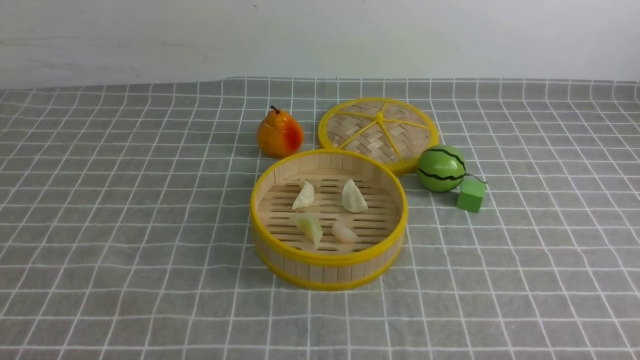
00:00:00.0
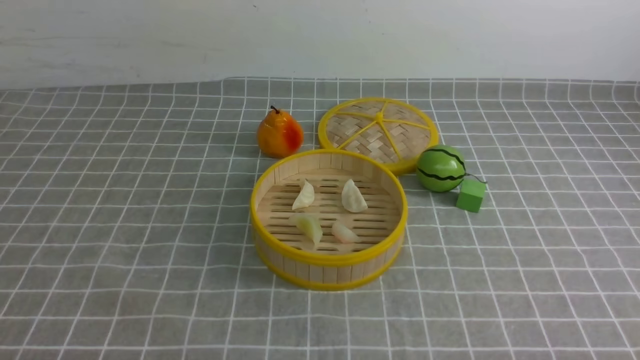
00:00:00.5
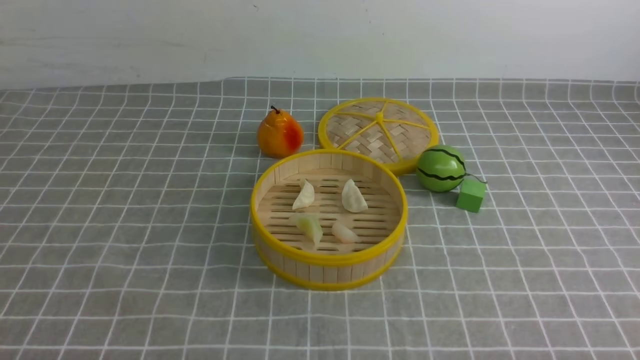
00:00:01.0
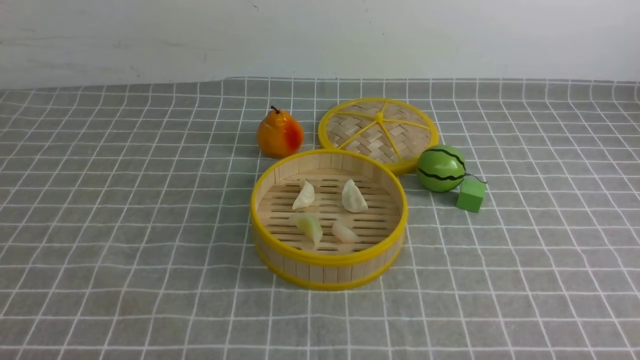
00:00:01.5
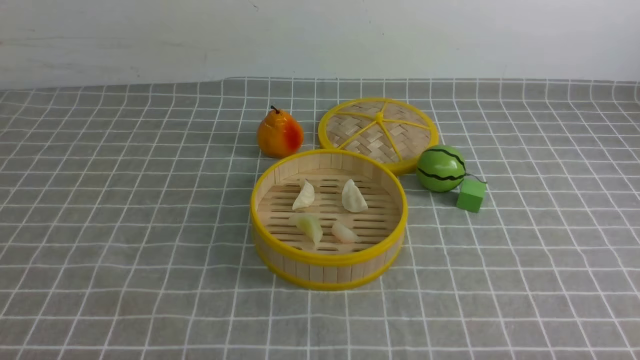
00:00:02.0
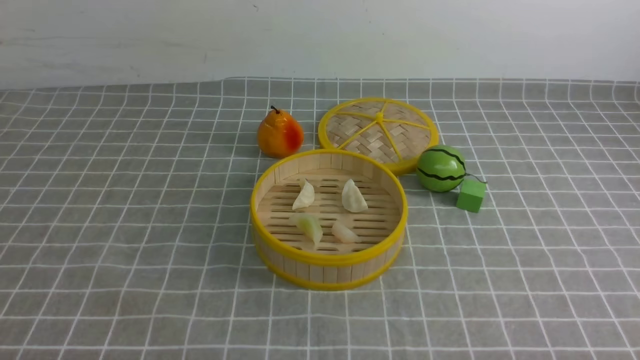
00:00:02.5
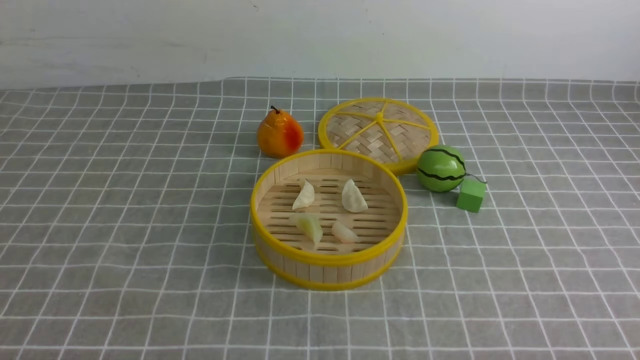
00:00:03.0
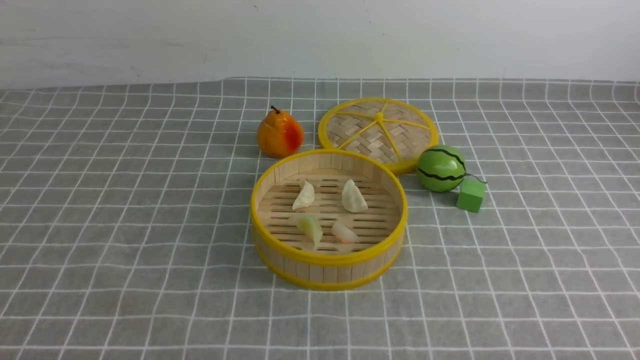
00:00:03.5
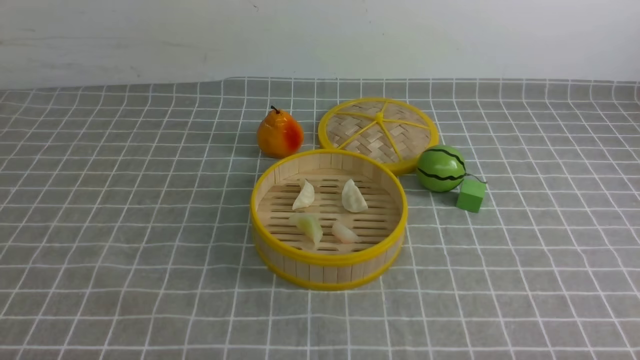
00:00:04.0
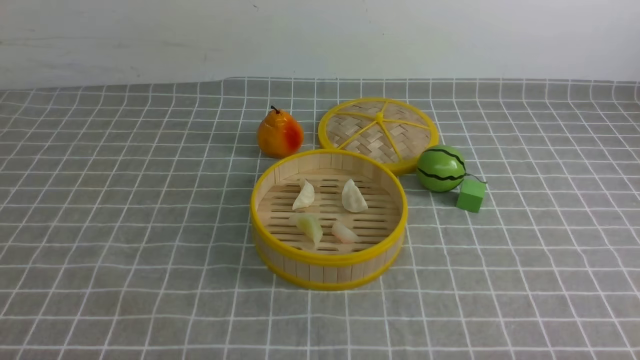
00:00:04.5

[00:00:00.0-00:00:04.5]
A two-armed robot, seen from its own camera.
Task of the whole recording: put the dumplings into the steamer on the table with the grey tablecloth.
00:00:00.0 to 00:00:04.5: Neither gripper changes place.

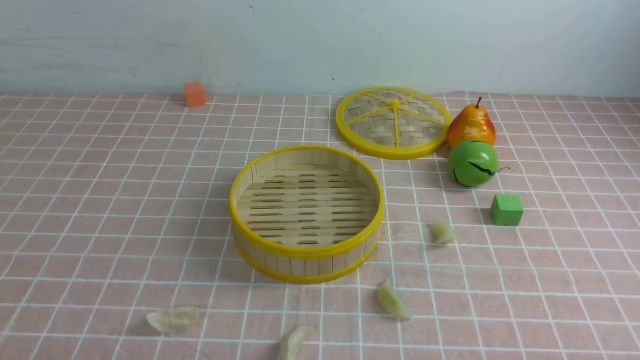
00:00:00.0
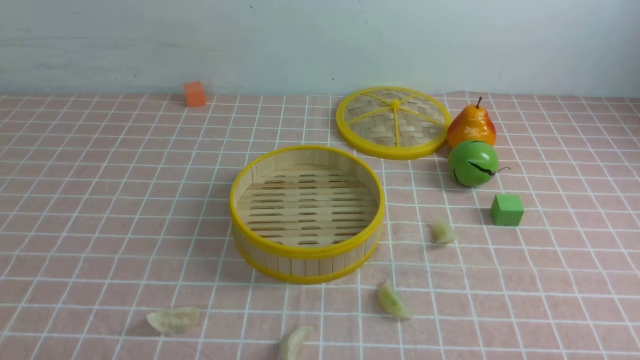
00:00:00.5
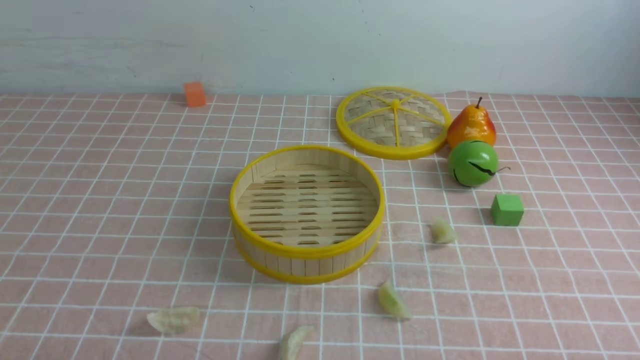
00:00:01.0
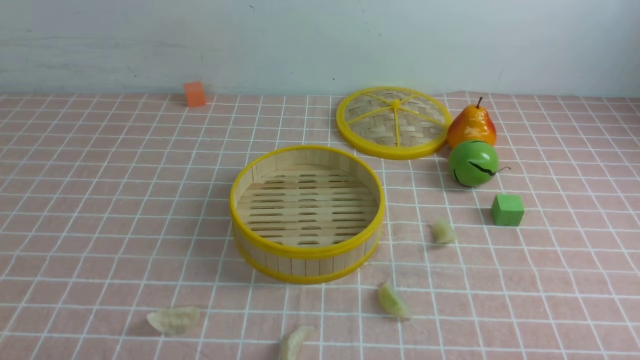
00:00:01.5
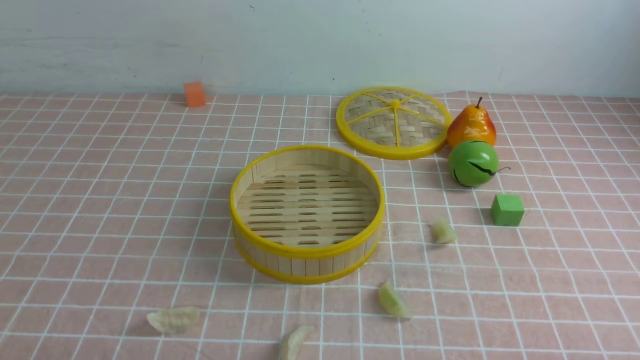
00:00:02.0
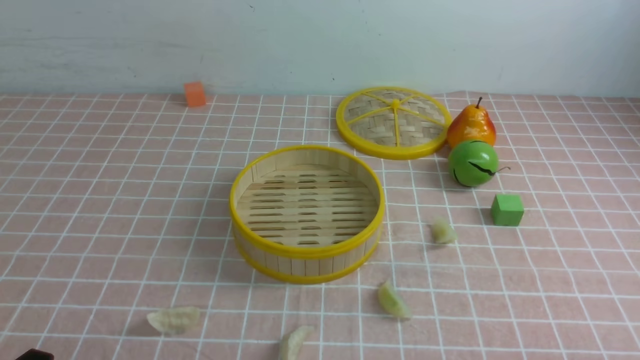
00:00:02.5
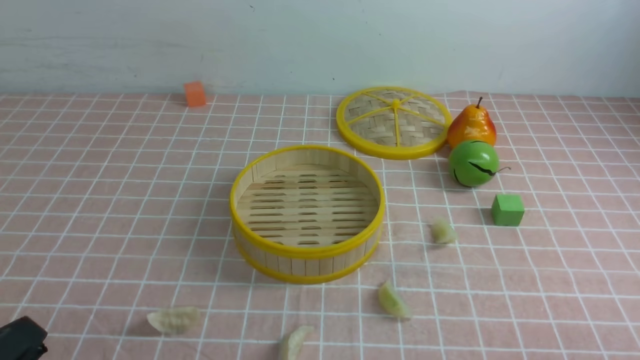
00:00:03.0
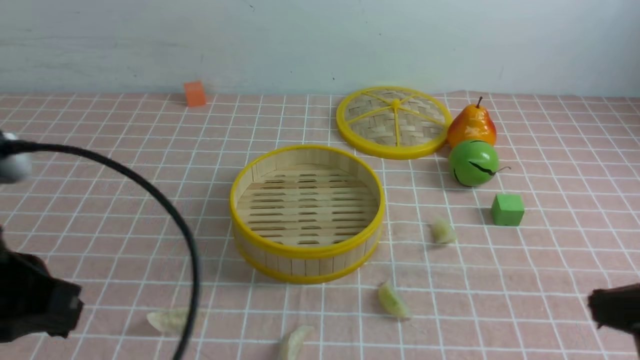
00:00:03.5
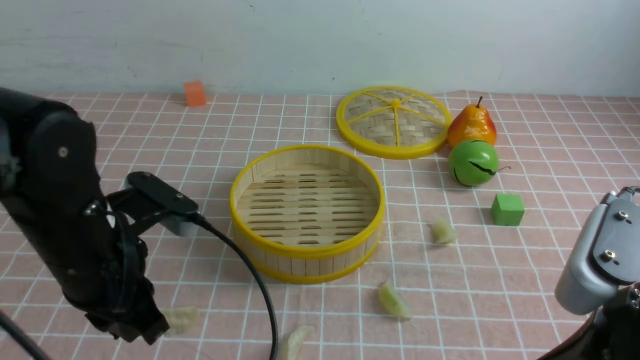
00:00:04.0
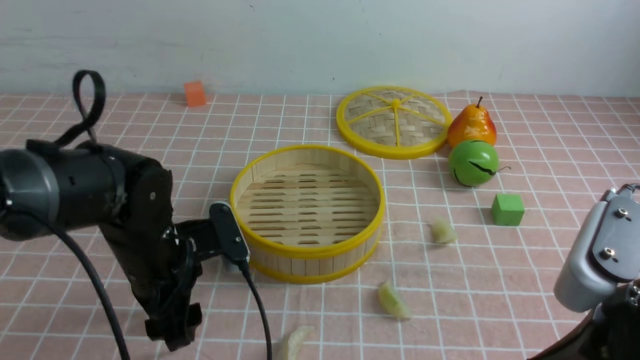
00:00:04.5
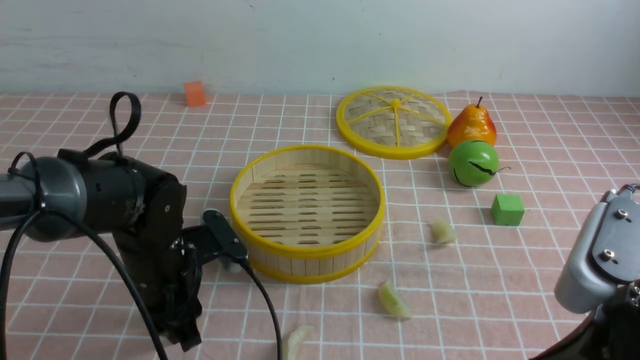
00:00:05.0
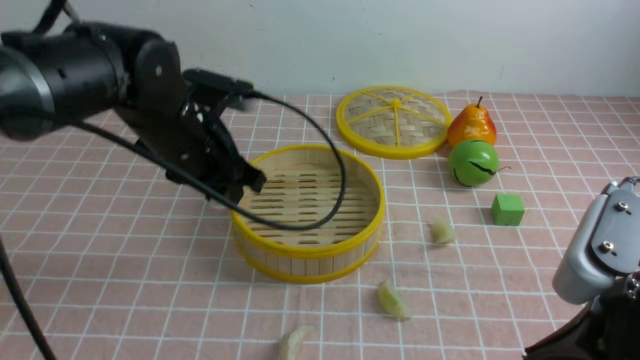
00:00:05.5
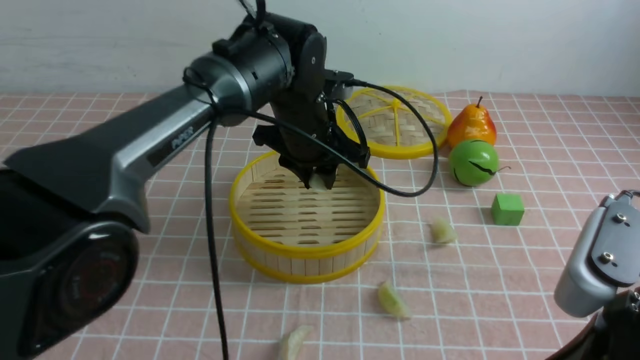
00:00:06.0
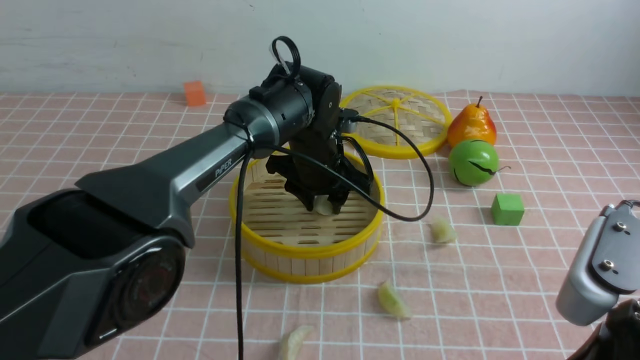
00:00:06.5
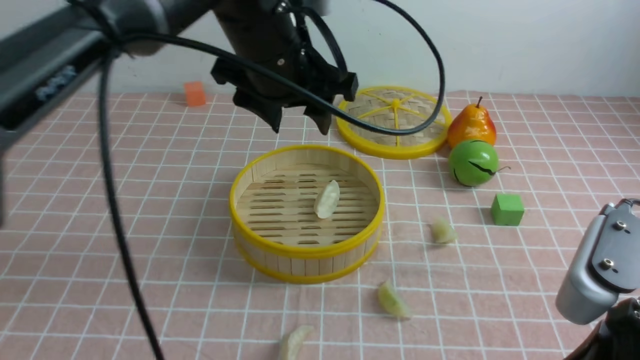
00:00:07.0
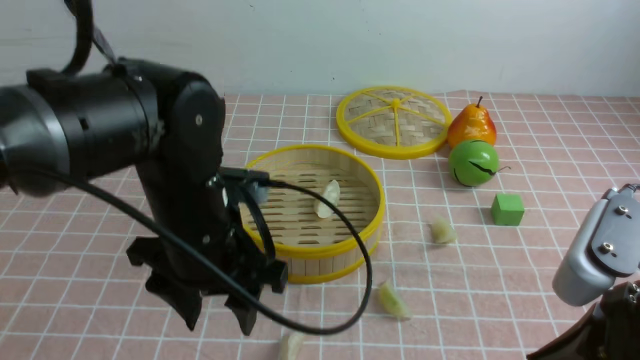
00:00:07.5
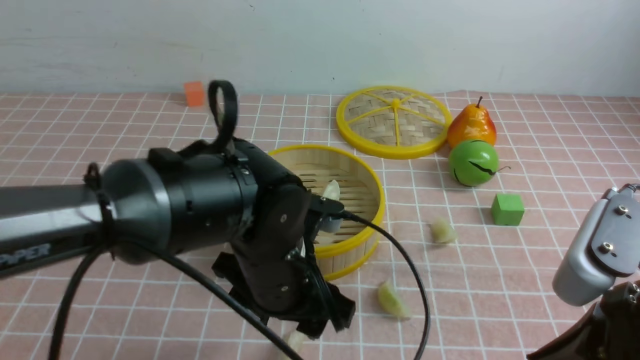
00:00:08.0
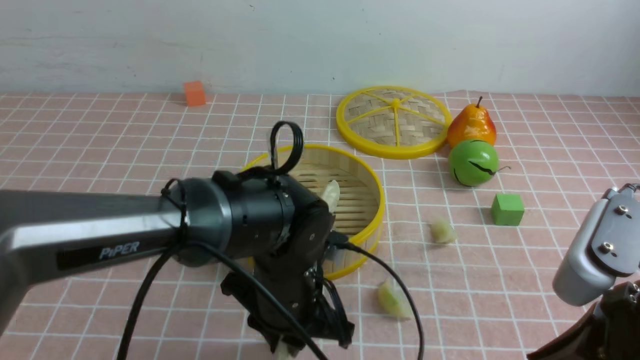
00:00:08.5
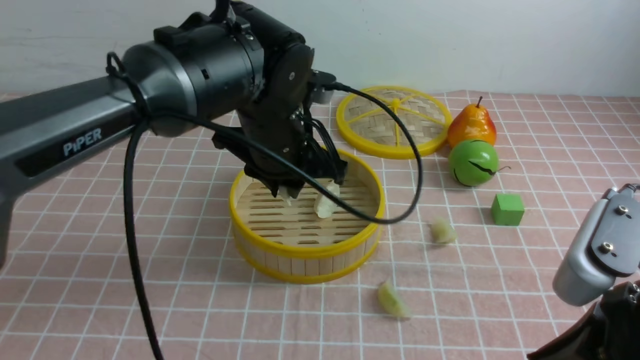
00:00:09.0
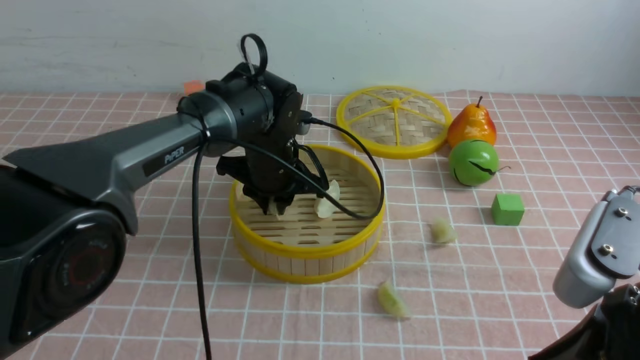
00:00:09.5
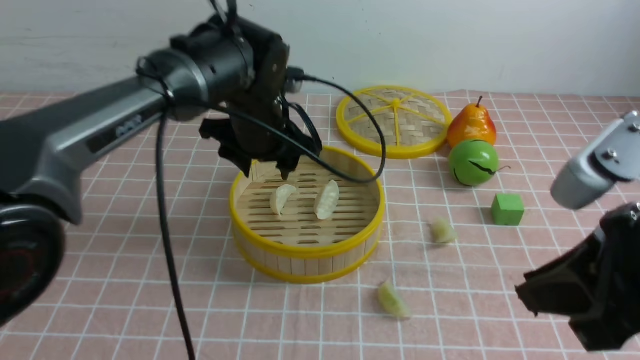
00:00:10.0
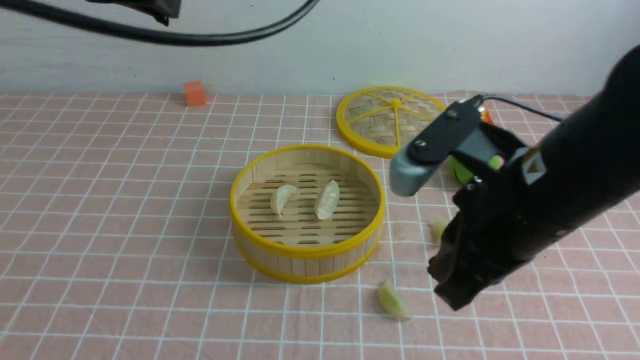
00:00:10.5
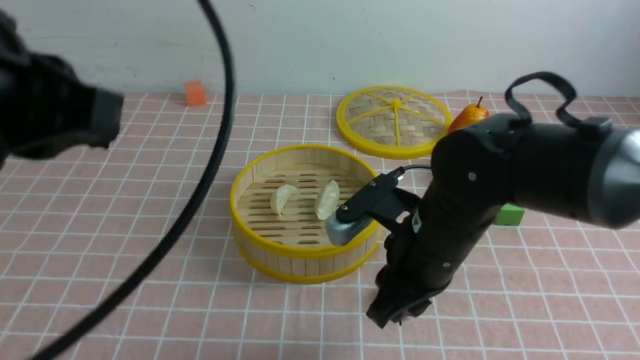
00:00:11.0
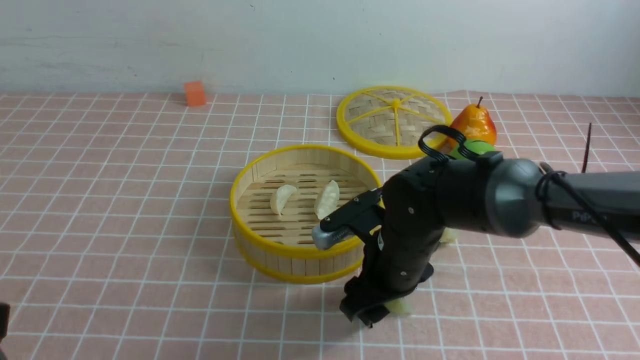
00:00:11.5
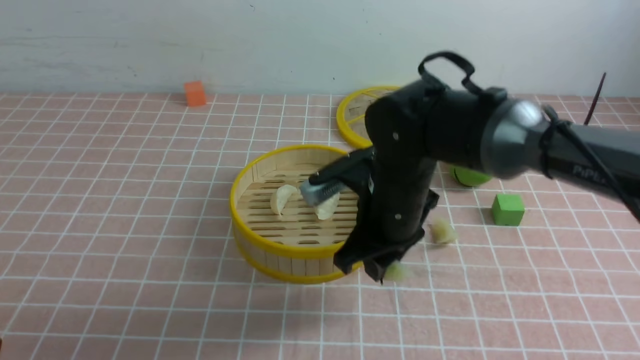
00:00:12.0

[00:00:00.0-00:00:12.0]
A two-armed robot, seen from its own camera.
Task of the whole recording: put the dumplings into the steamer on the table with the pink tablecloth.
Step, 00:00:00.0 to 00:00:05.0: use the left arm to grab a dumpling.
Step, 00:00:05.5 to 00:00:06.5: use the left arm to put the dumpling into the steamer.
Step, 00:00:07.5 to 00:00:08.5: use the left arm to grab a dumpling.
Step, 00:00:09.0 to 00:00:10.0: use the left arm to put the dumpling into the steamer.
Step, 00:00:10.5 to 00:00:11.5: use the right arm to grab a dumpling.
00:00:02.0 to 00:00:04.0: The right gripper goes some 20 cm upward, to the left and forward, and closes its fingers. Meanwhile the left gripper goes about 20 cm forward, upward and to the right.
00:00:04.0 to 00:00:06.0: The left gripper shifts approximately 25 cm forward and to the right, and opens, then closes once more.
00:00:06.0 to 00:00:08.0: The left gripper moves backward, roughly 15 cm, and opens its fingers.
00:00:08.0 to 00:00:10.0: The left gripper heads forward, covering approximately 15 cm, and closes and opens again.
00:00:10.0 to 00:00:12.0: The left gripper is displaced backward and to the left by roughly 40 cm, and closes. The right gripper shifts some 25 cm forward, to the left and downward, and opens and closes again.

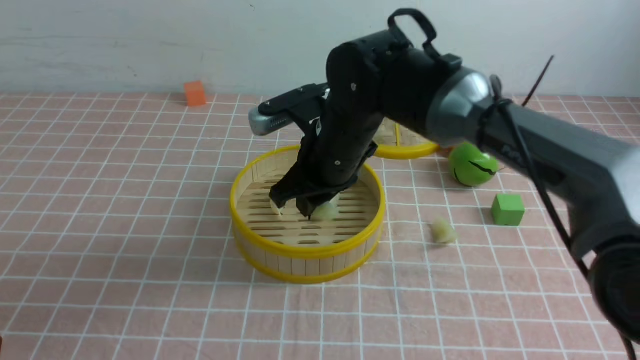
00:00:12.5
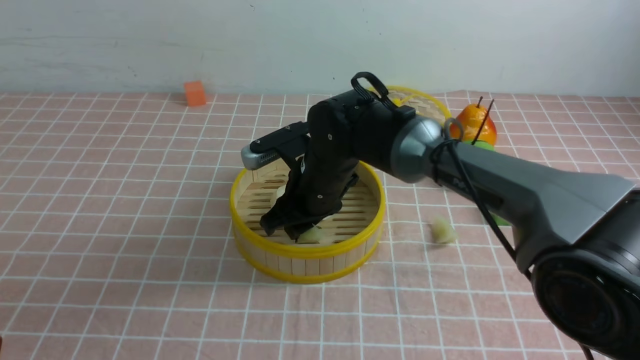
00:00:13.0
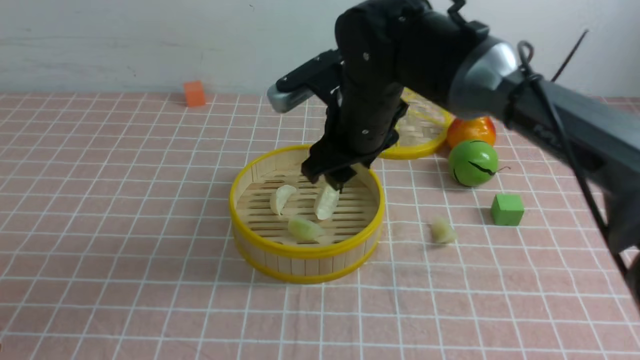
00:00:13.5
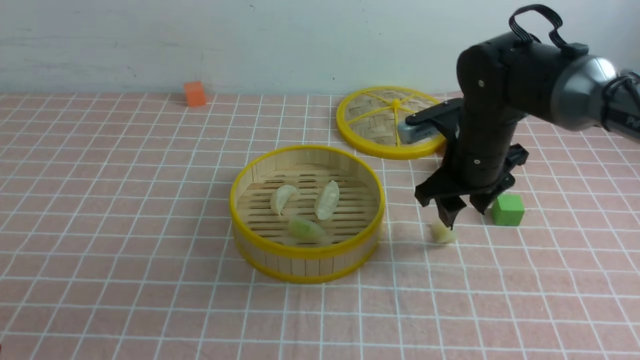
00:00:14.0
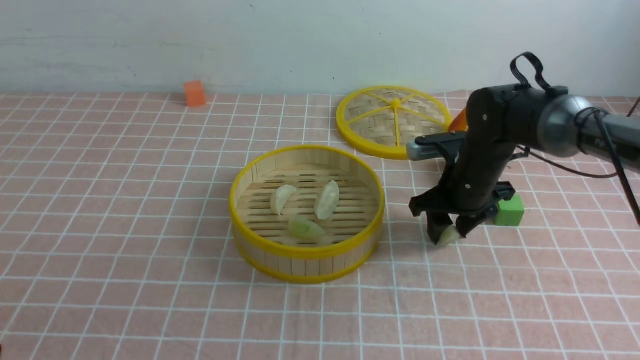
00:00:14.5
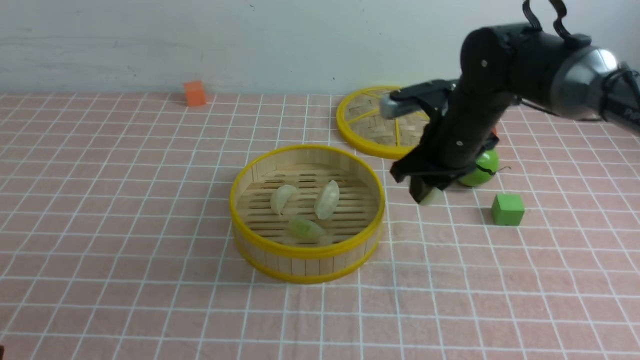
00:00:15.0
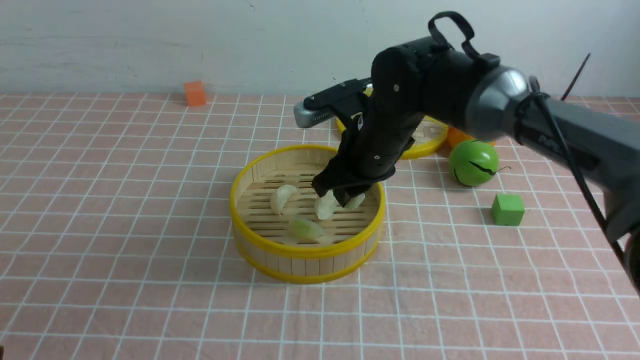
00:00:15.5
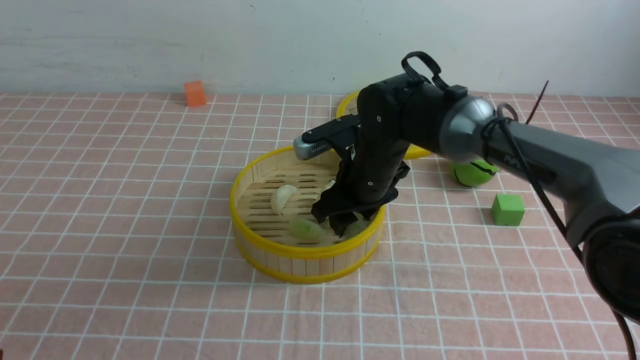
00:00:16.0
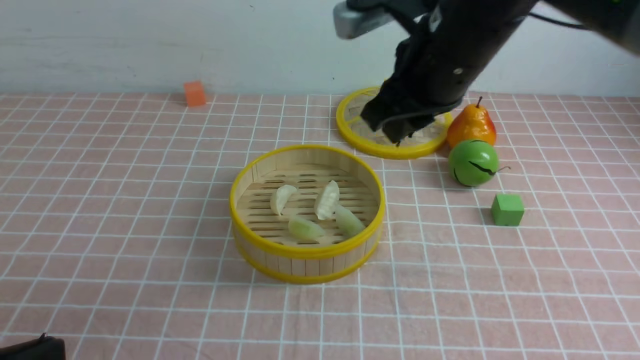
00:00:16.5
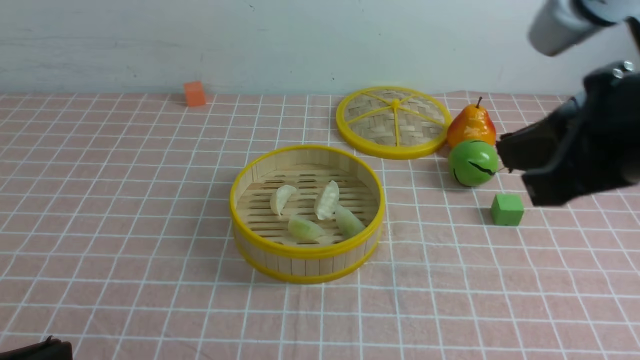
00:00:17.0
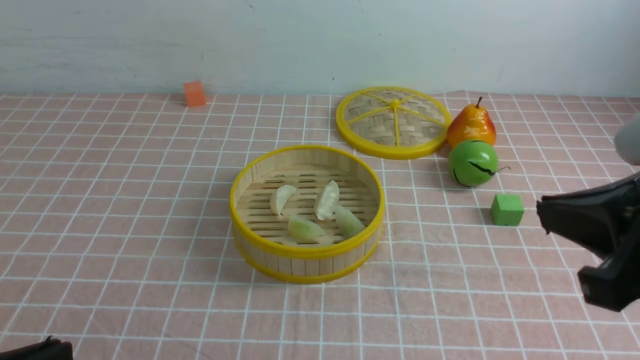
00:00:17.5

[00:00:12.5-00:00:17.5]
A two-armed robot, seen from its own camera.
Task of the whole recording: put the dumplings into the steamer on the table with the pink tablecloth.
Step, 00:00:13.5 to 00:00:15.0: use the right arm to grab a dumpling.
Step, 00:00:15.5 to 00:00:16.5: use the right arm to put the dumpling into the steamer.
00:00:12.5 to 00:00:15.0: The right gripper travels to the right by some 15 cm, and opens, then closes again.
00:00:15.0 to 00:00:17.5: The left gripper travels downward by about 10 cm, while the right gripper travels backward and upward by approximately 30 cm, and closes.
